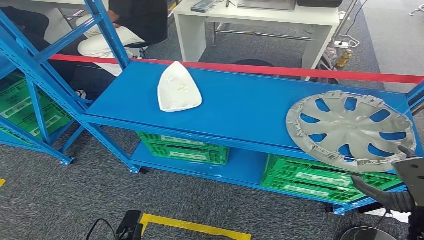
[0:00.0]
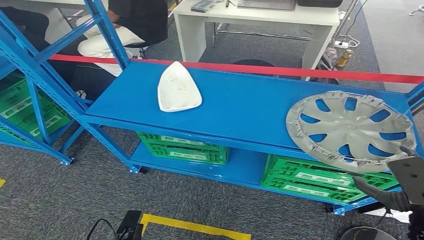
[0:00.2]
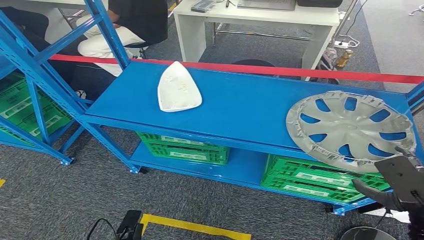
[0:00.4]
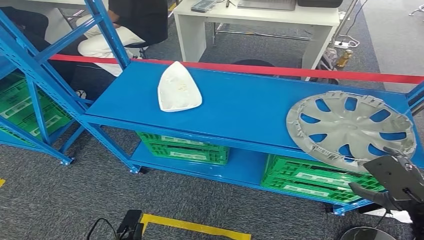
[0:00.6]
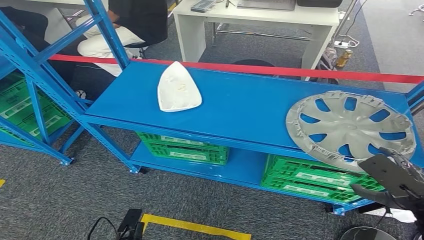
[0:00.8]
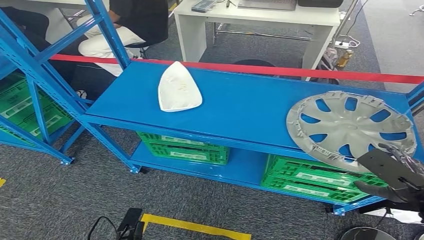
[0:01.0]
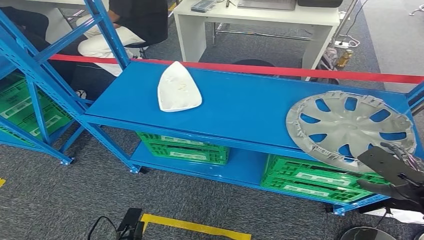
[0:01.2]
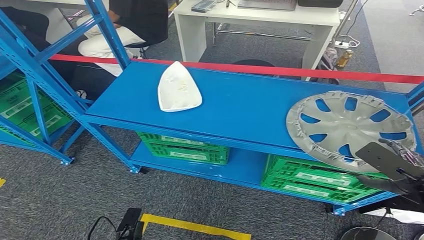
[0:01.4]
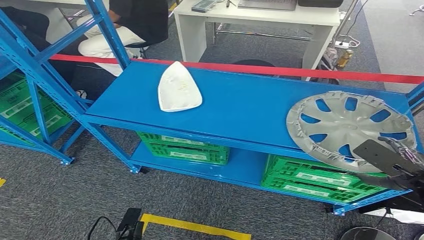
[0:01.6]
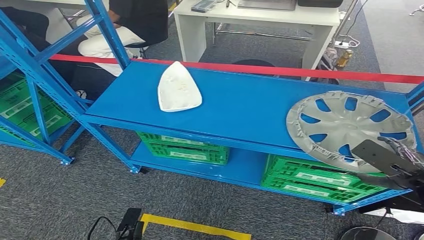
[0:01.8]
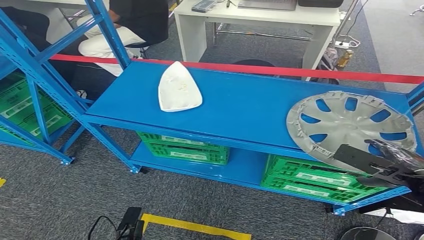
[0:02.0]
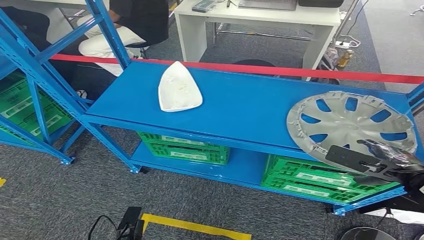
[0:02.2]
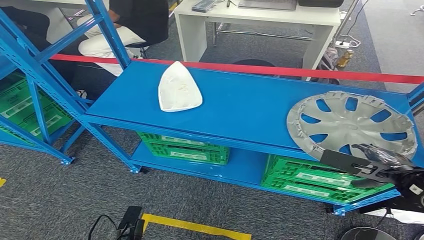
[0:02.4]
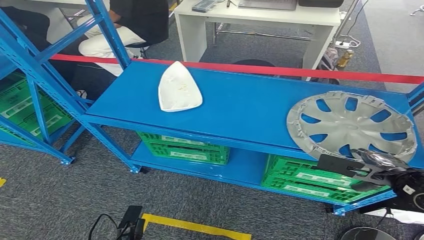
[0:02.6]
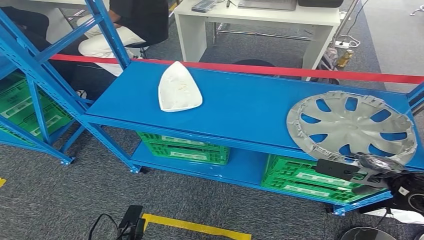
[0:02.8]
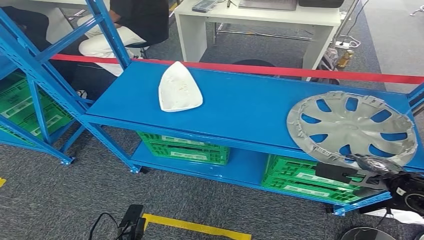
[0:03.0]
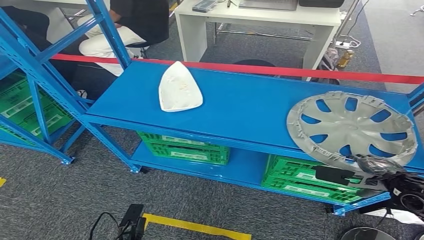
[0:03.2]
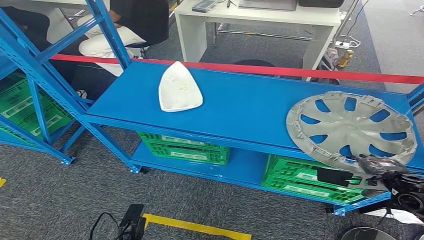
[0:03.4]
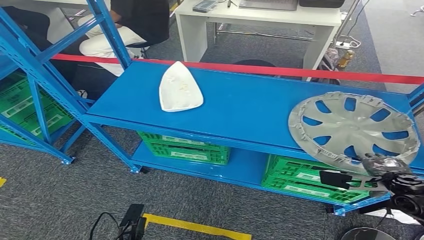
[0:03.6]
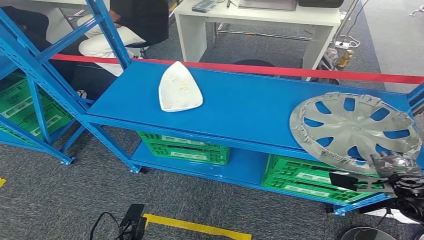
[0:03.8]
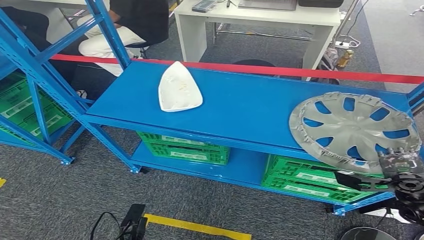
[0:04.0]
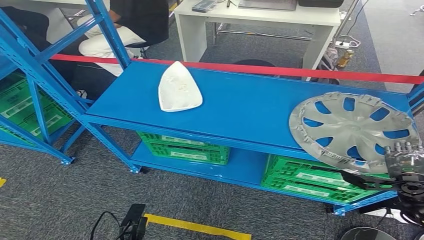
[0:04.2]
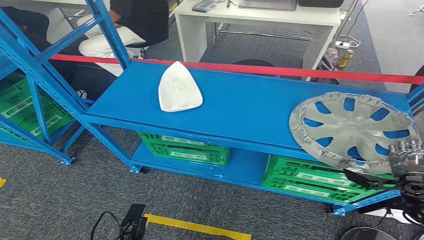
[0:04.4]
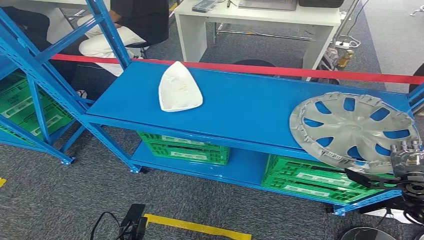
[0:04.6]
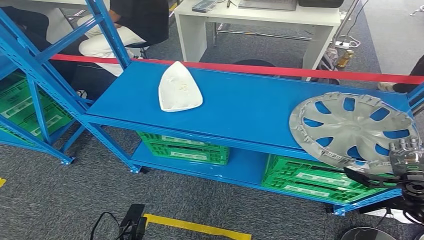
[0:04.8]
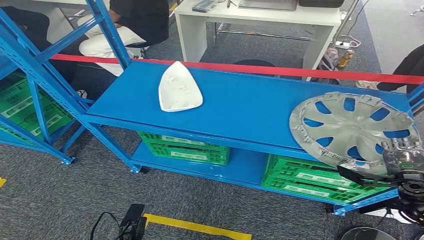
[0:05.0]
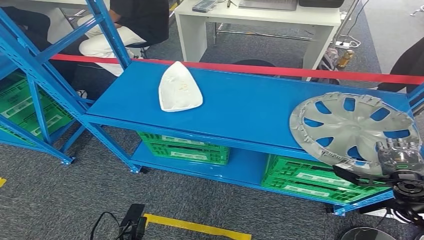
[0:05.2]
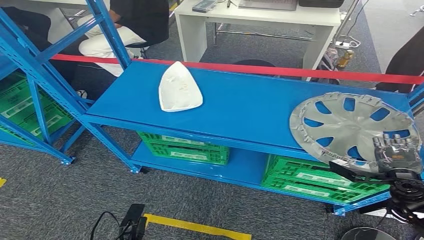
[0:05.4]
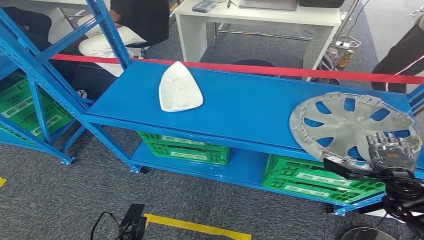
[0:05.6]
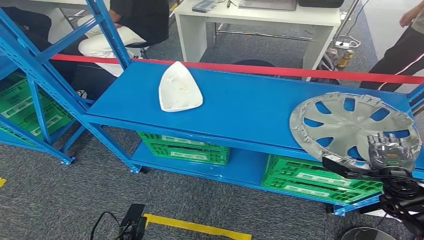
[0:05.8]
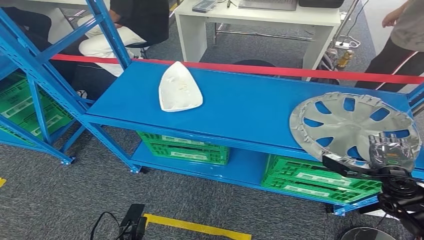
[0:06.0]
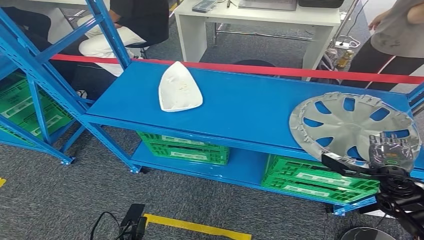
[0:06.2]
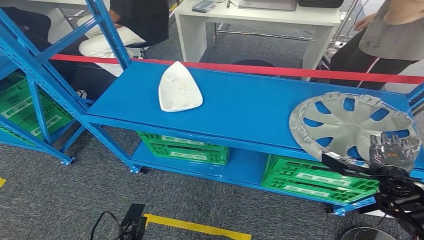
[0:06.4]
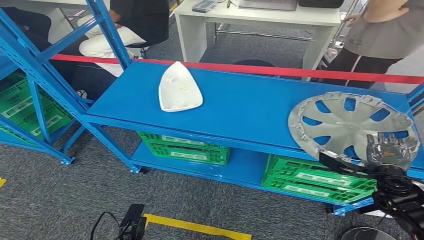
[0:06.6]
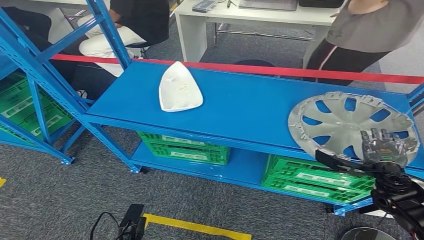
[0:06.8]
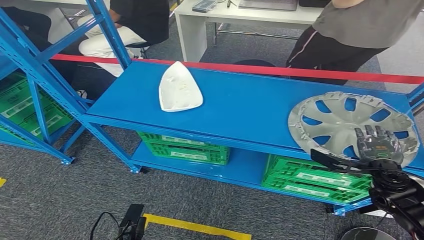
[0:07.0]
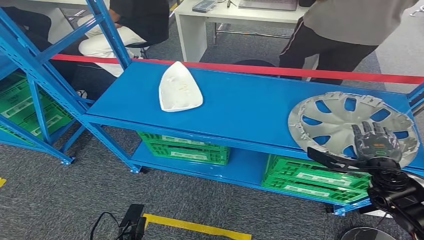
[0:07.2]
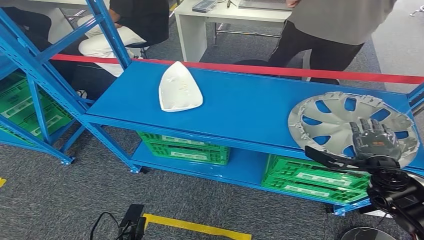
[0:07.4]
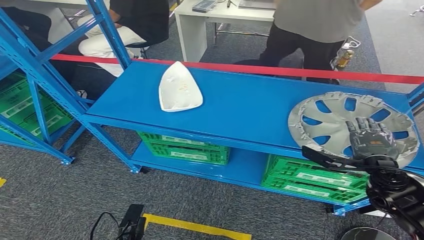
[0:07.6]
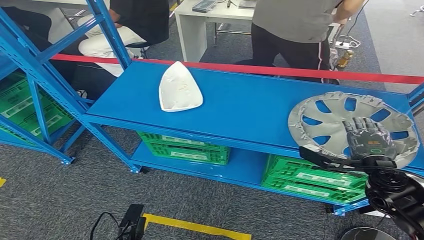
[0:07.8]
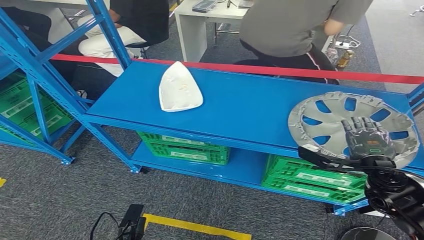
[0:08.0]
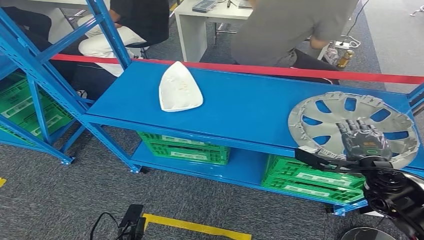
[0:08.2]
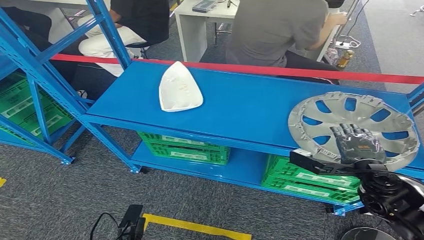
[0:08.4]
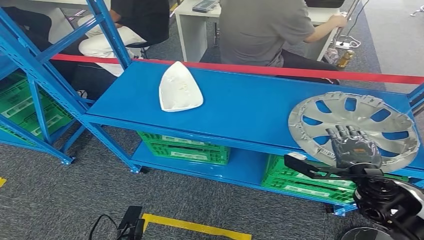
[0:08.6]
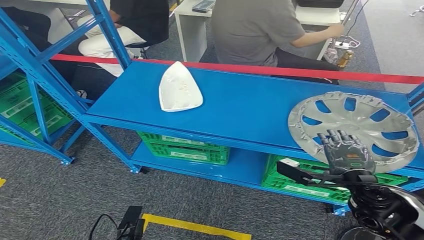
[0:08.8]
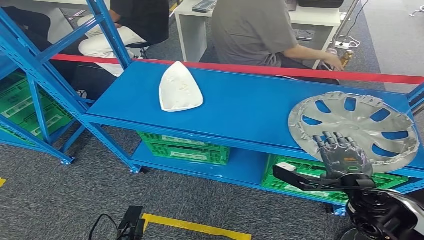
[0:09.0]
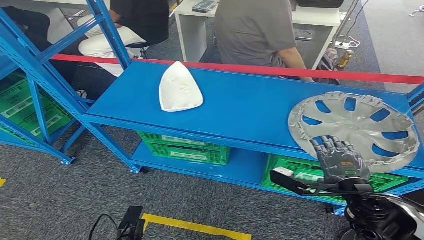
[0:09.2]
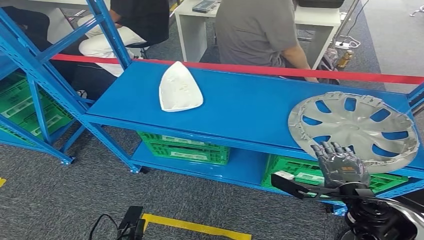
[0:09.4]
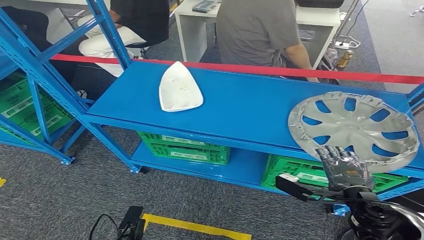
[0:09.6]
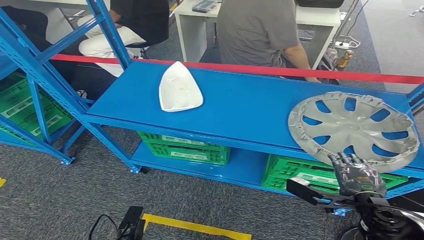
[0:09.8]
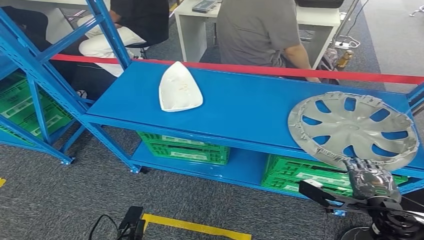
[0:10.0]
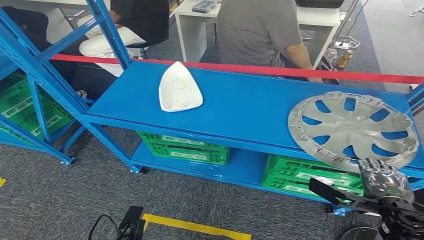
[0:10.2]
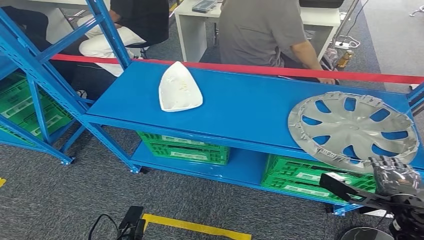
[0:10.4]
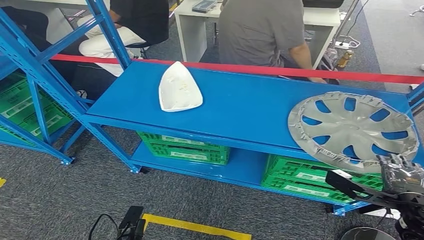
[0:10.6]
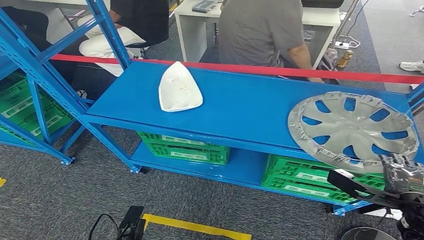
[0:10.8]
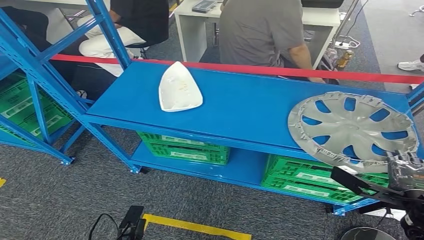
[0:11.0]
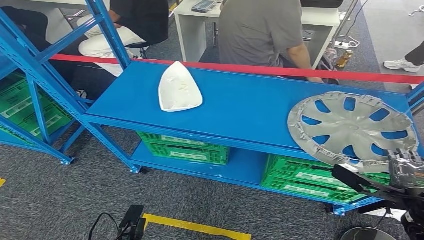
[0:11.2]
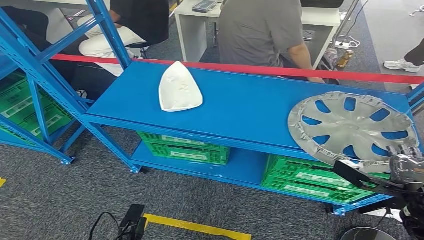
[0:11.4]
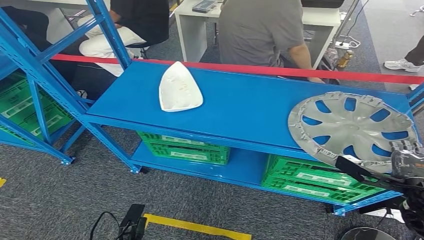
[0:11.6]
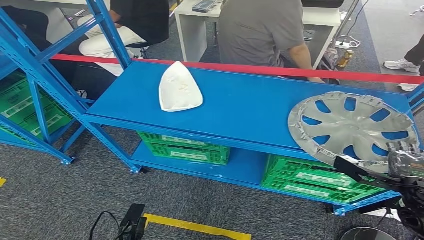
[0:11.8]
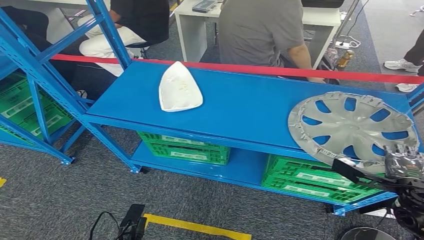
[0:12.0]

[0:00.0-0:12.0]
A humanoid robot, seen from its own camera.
0:00.0 to 0:01.6: The right hand shifts roughly 10 cm forward and to the right.
0:01.6 to 0:03.0: The right hand moves downward, approximately 5 cm.
0:04.4 to 0:06.0: The hands move only a little.
0:06.0 to 0:07.6: The right hand goes approximately 5 cm to the left.
0:07.6 to 0:09.0: The right hand moves backward and to the left, approximately 10 cm.
0:09.0 to 0:10.4: The right hand heads to the right, covering some 10 cm.
0:10.4 to 0:12.0: The right hand moves roughly 5 cm.

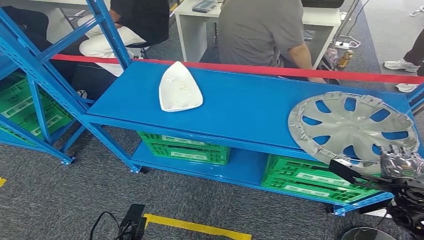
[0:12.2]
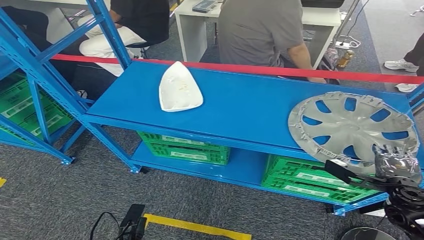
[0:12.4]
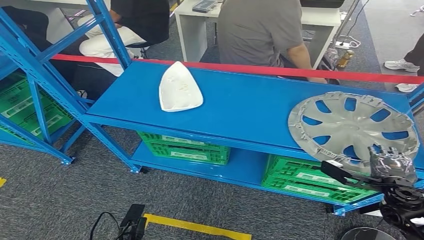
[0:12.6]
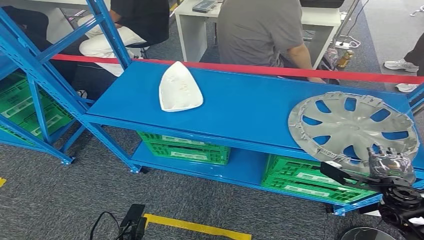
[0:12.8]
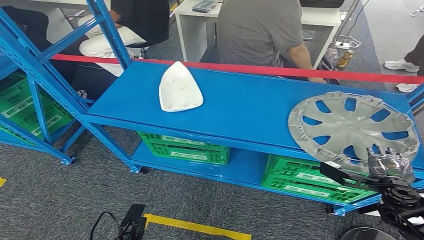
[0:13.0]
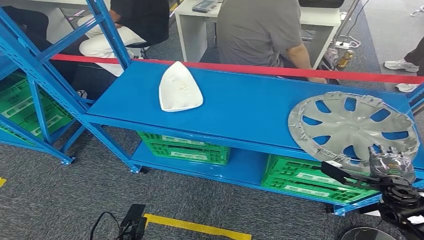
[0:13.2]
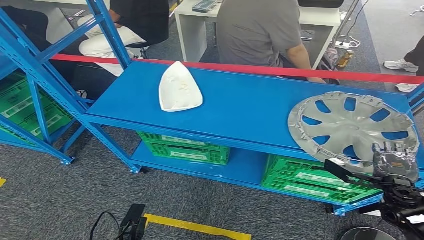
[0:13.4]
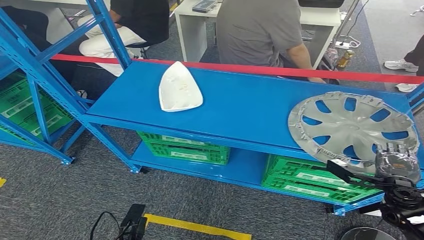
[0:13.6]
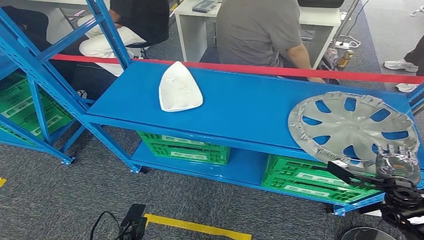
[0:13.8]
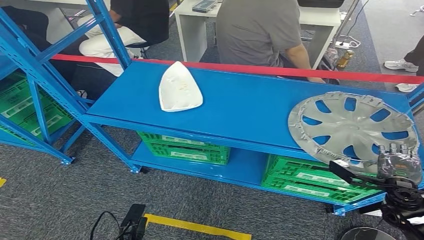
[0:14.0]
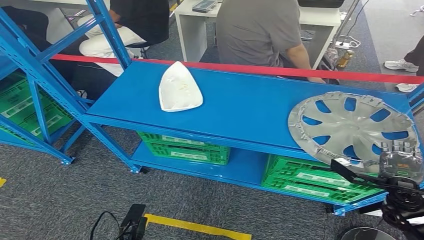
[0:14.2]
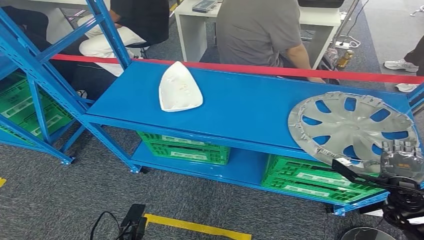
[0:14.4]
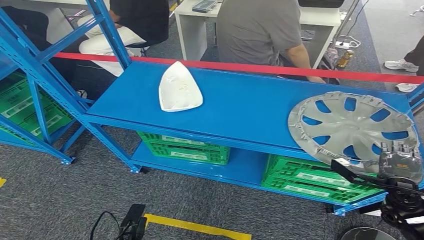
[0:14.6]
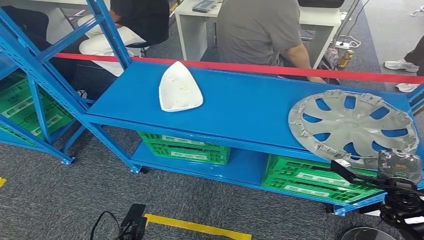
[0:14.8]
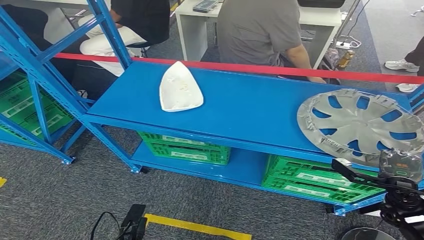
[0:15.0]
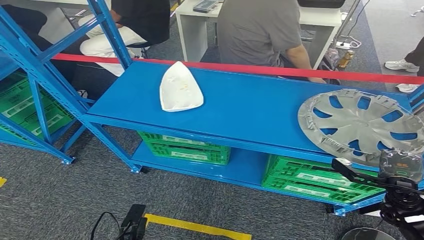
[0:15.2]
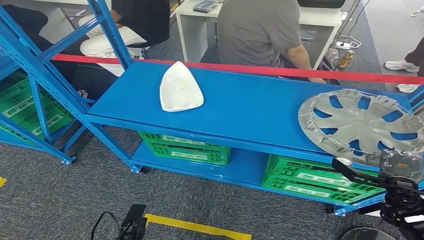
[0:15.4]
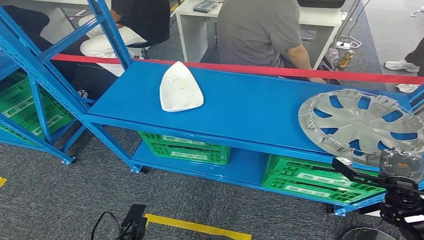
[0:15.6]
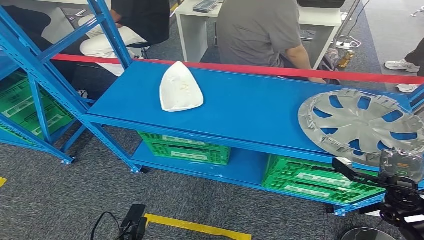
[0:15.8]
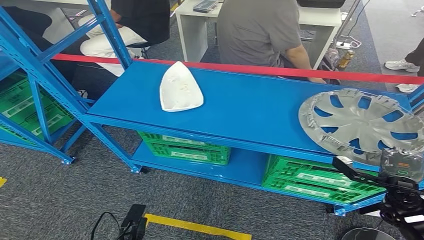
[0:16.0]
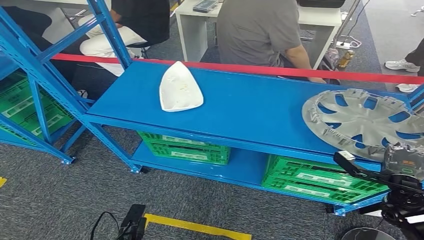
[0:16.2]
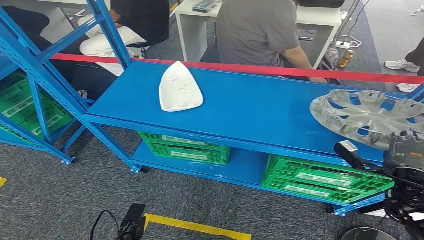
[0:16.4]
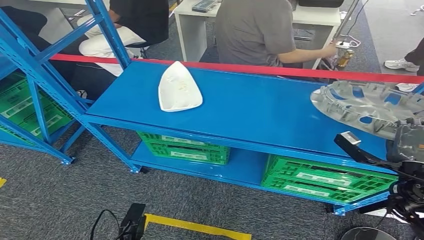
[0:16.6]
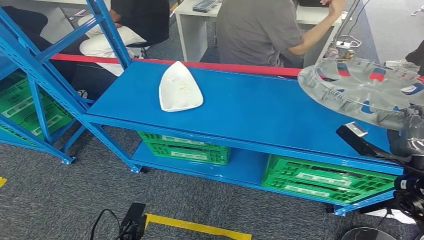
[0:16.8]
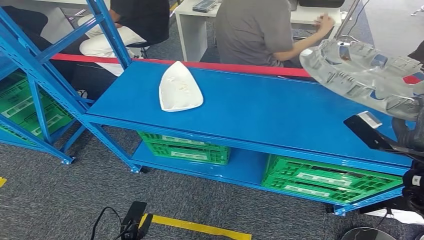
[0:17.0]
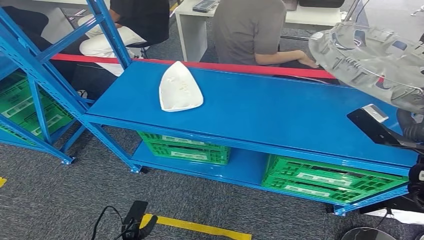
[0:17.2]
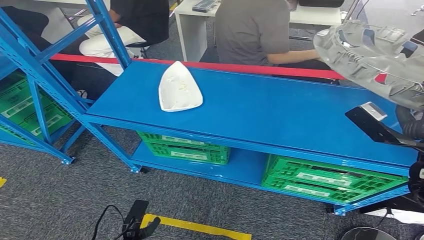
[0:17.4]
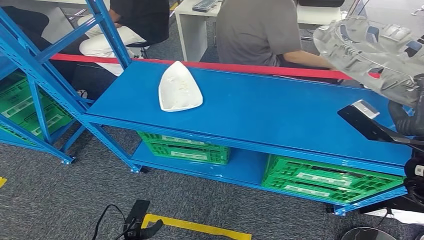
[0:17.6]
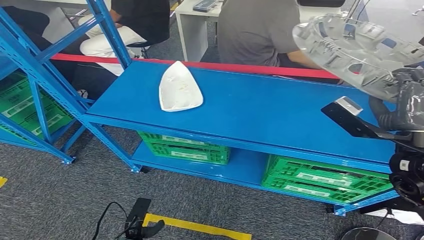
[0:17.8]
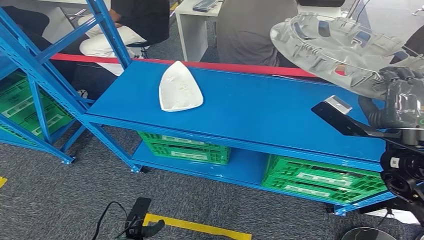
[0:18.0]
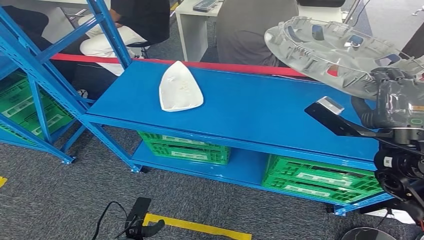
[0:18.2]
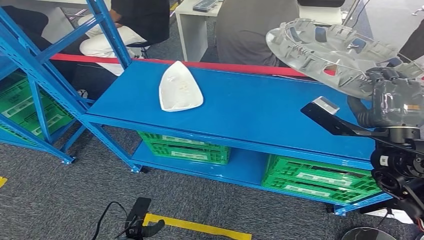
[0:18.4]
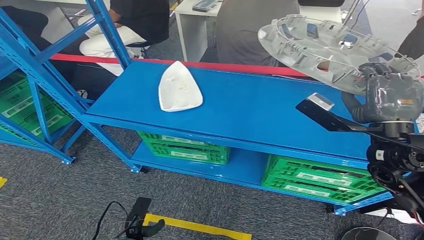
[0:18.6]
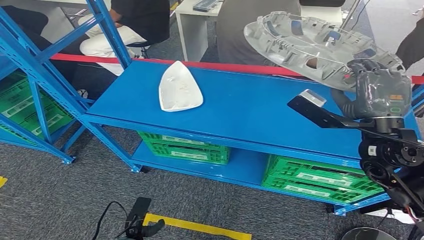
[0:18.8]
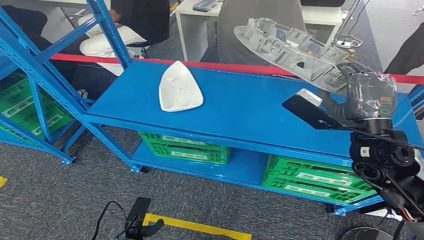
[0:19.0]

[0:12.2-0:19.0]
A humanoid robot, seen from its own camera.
0:12.2 to 0:16.2: The hands move only a little.
0:16.2 to 0:17.6: The right hand is displaced upward by roughly 20 cm.
0:17.6 to 0:19.0: The right hand is displaced to the left by some 10 cm.
